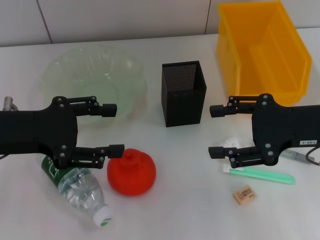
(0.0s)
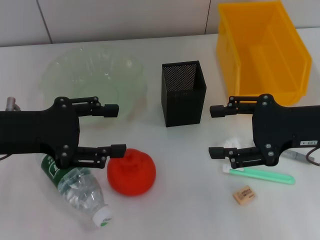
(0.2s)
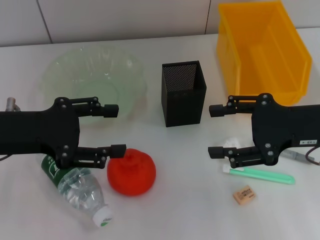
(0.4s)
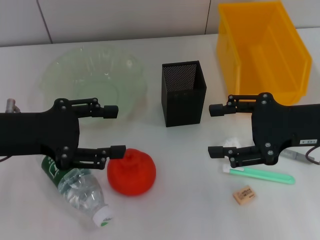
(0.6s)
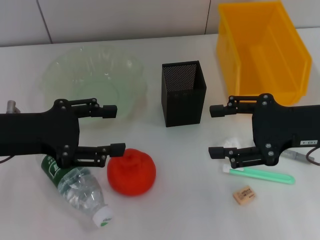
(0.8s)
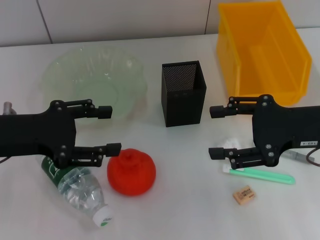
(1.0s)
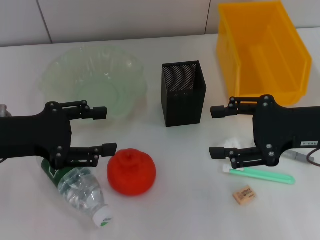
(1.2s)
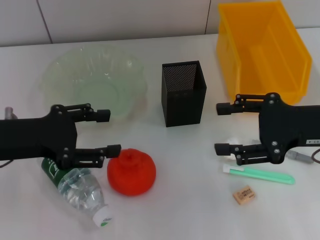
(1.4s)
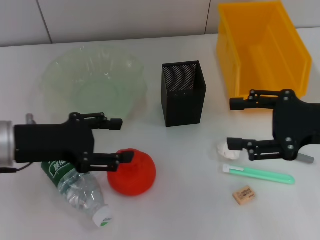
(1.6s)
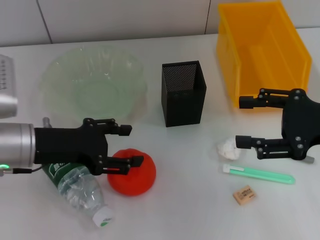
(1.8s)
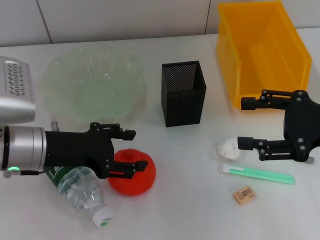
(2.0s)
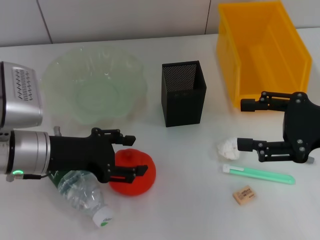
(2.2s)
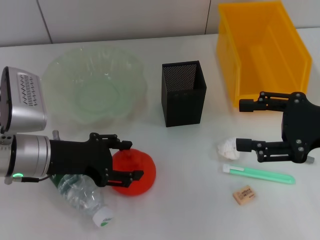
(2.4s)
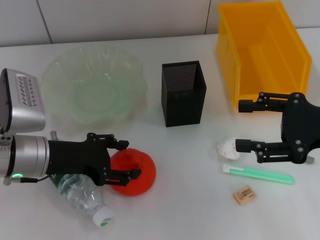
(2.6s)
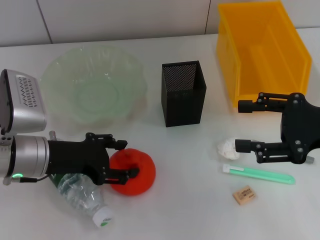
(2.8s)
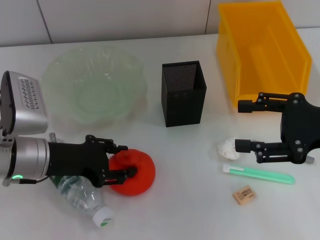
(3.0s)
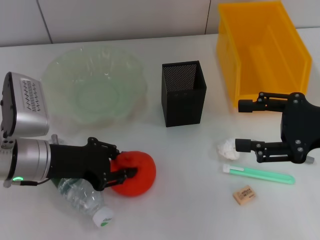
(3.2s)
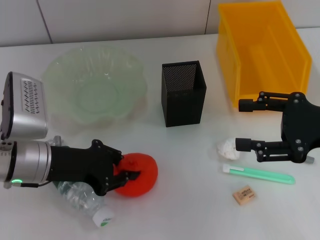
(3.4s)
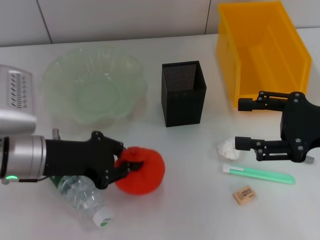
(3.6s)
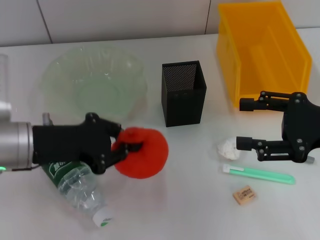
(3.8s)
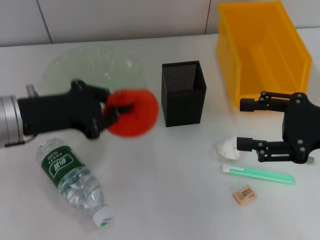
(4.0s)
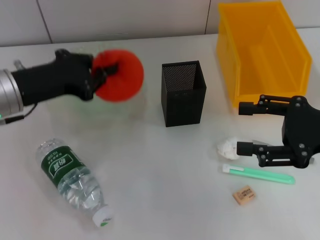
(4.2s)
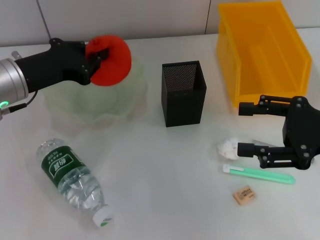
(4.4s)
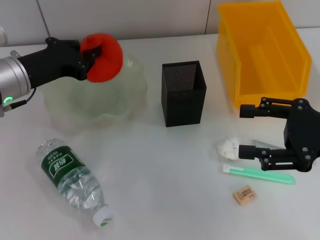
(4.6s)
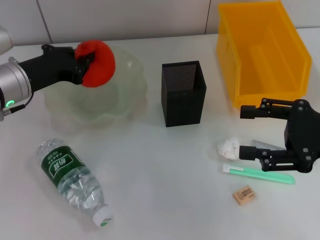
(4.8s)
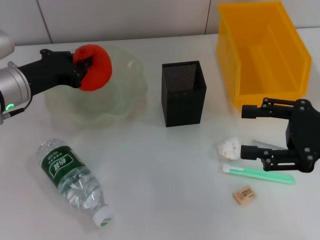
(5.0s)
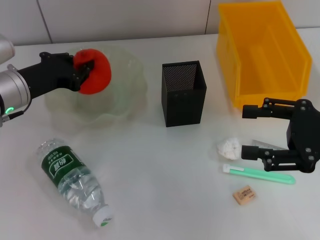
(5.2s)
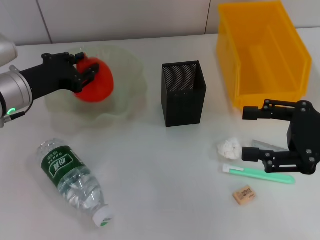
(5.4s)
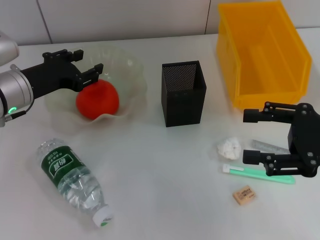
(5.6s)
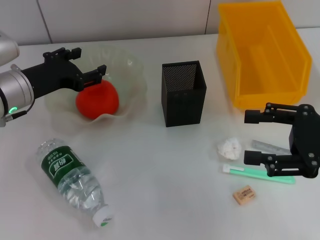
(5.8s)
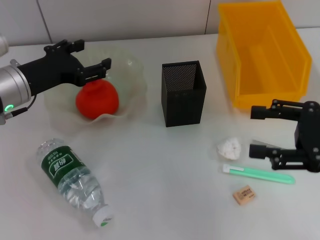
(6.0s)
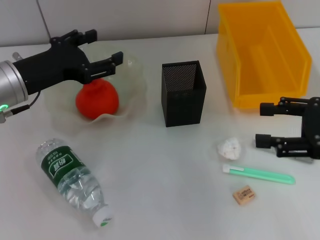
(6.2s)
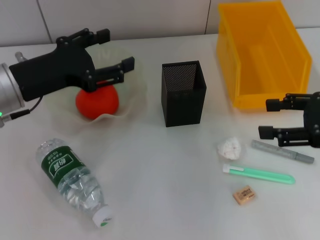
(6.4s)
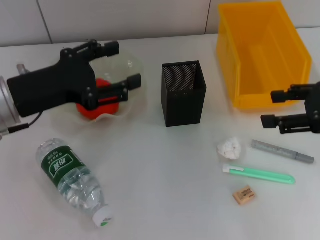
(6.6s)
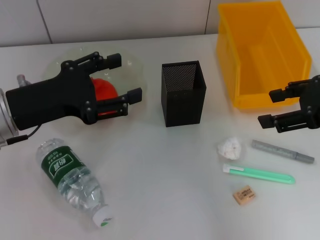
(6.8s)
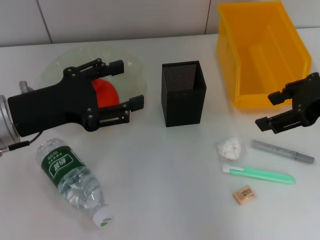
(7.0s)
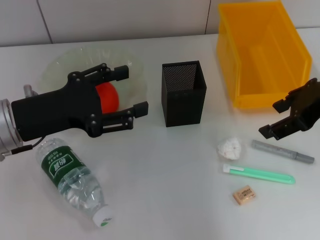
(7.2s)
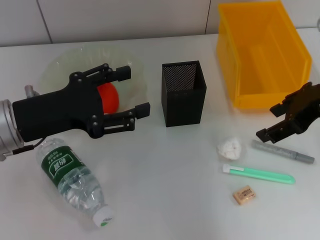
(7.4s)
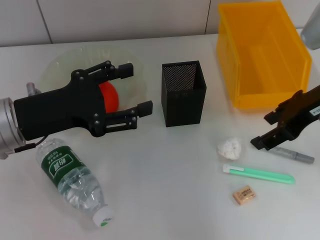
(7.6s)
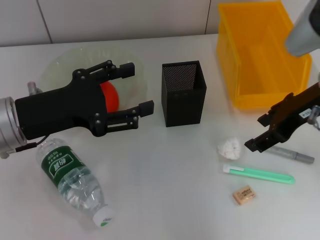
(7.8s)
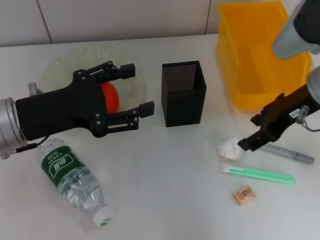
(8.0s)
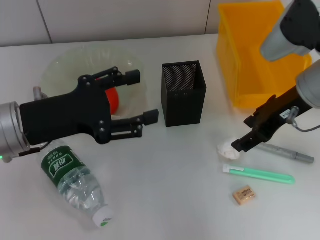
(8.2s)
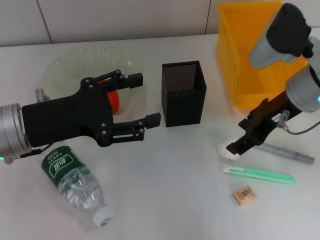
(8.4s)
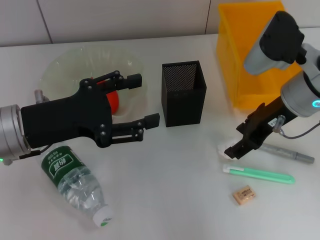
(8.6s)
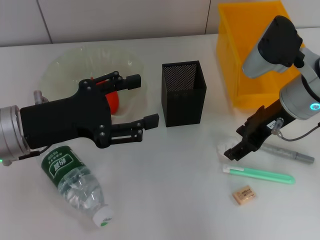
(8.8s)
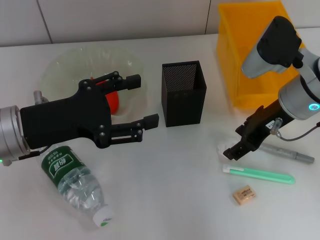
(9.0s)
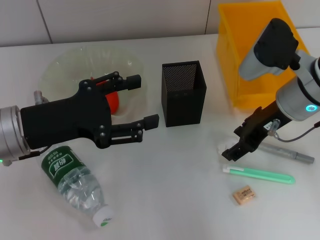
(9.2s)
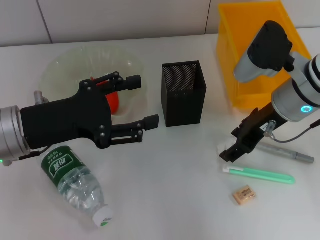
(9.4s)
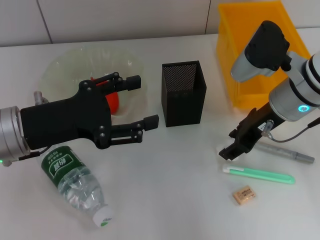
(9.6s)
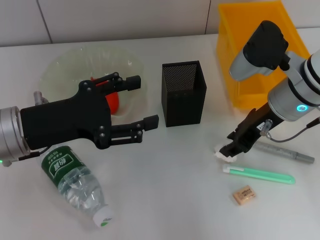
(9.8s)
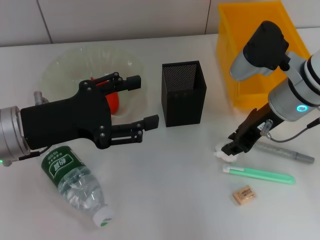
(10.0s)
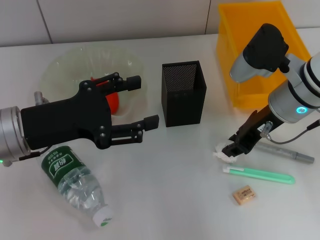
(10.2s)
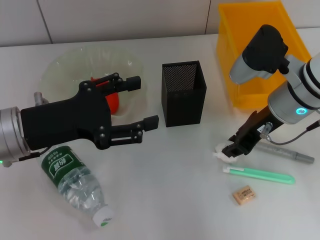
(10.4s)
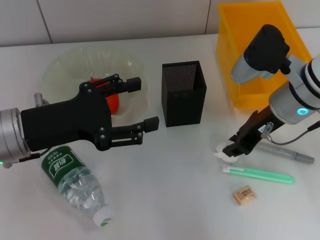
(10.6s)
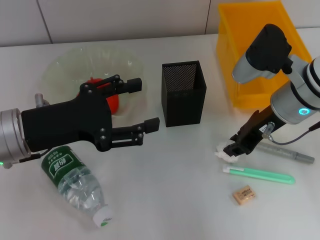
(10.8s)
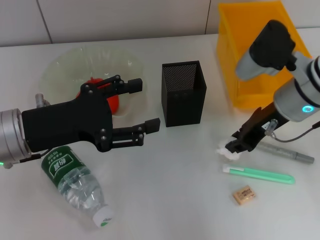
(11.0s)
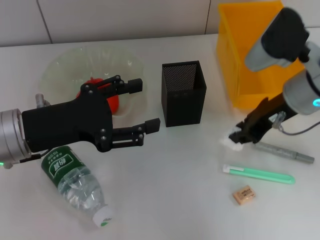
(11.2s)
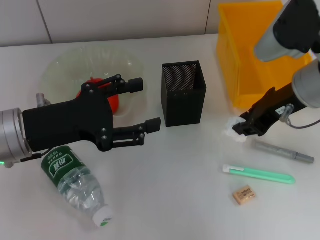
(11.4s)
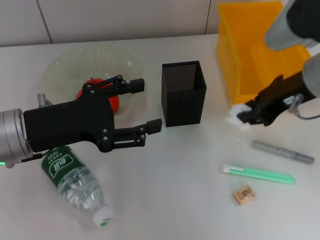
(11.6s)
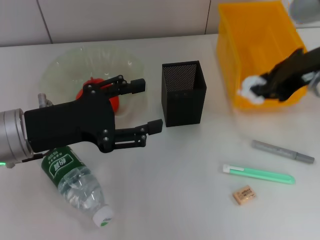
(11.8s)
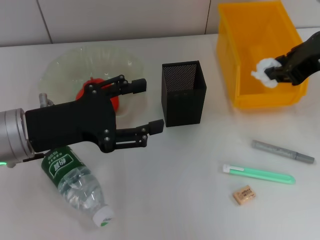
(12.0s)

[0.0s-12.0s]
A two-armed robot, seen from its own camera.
Step, 0.0s to 3.2s: Grab the orange with the left hand.
Step, 3.6s to 5.4s: Place the orange into the fruit bowl with the left hand.
Step, 5.6s to 10.6s: Grab the paper ball with the right hand.
0.0s to 1.6s: There are only small adjustments of the grippers.
1.6s to 3.0s: The left gripper moves roughly 5 cm.
3.0s to 4.4s: The left gripper moves upward, roughly 5 cm, and closes its fingers.
4.4s to 6.0s: The left gripper opens its fingers.
6.0s to 7.6s: The left gripper is displaced backward by about 10 cm; the right gripper goes some 10 cm forward, upward and to the left.
7.6s to 9.0s: The right gripper moves downward, roughly 5 cm.
9.0s to 10.4s: The right gripper closes its fingers.
10.4s to 12.0s: The right gripper moves upward, approximately 10 cm.

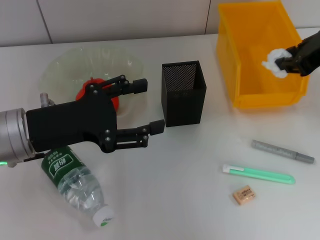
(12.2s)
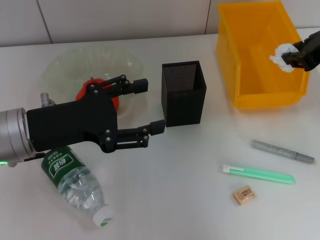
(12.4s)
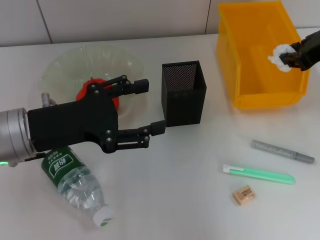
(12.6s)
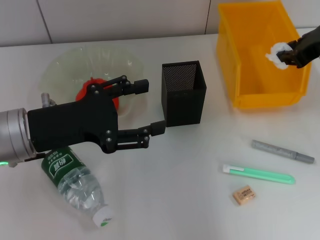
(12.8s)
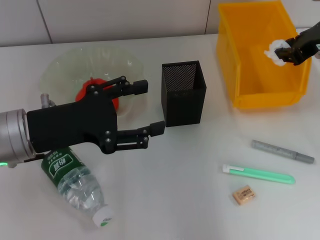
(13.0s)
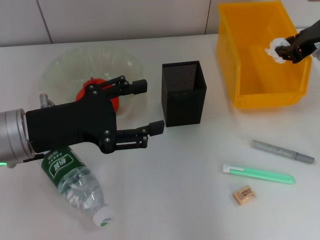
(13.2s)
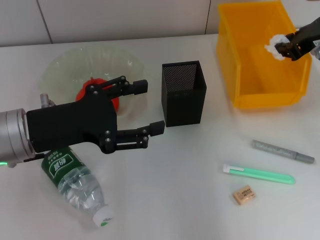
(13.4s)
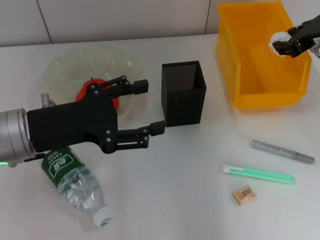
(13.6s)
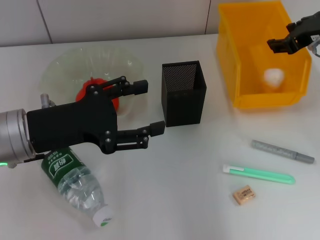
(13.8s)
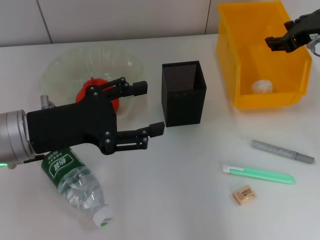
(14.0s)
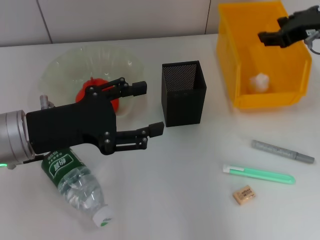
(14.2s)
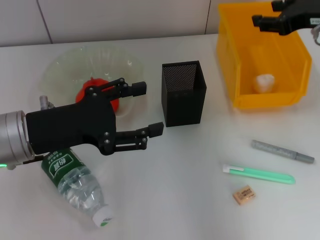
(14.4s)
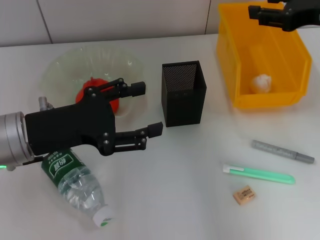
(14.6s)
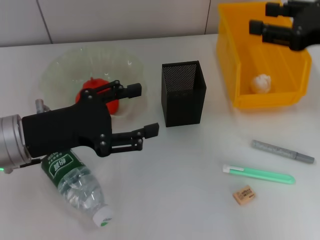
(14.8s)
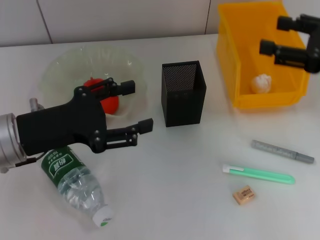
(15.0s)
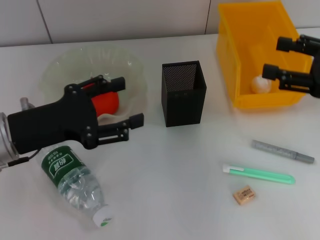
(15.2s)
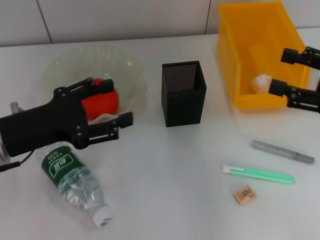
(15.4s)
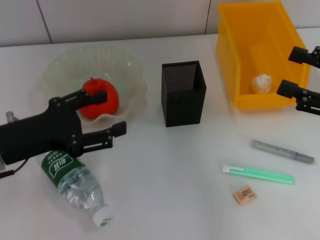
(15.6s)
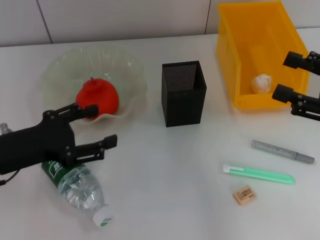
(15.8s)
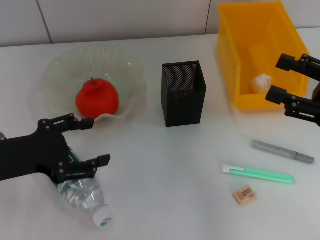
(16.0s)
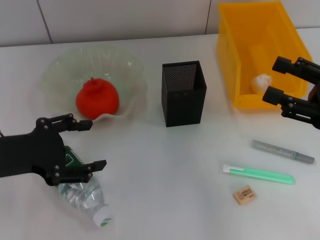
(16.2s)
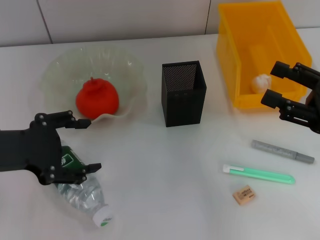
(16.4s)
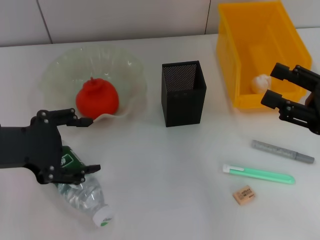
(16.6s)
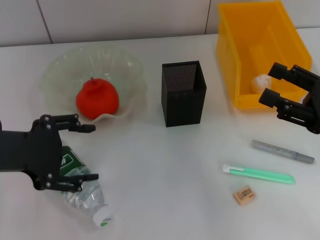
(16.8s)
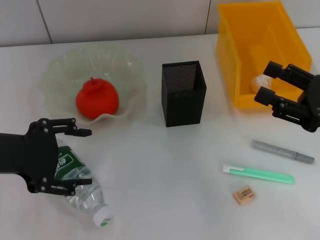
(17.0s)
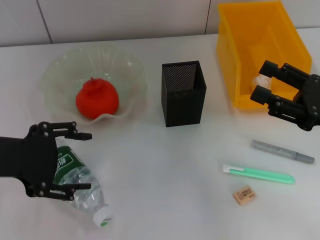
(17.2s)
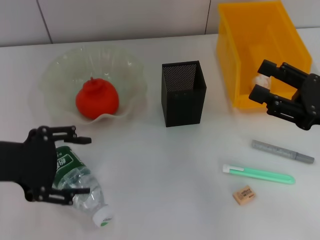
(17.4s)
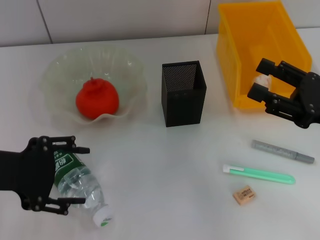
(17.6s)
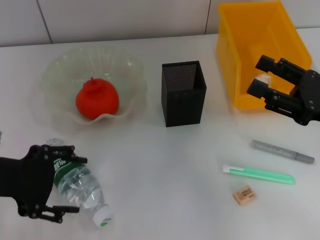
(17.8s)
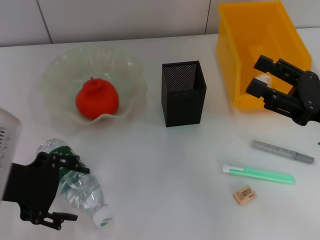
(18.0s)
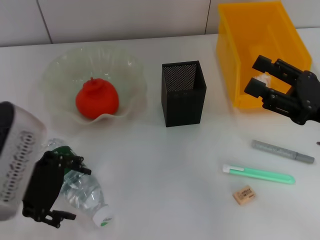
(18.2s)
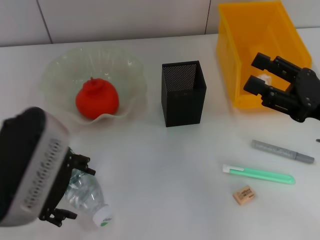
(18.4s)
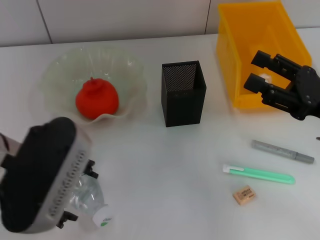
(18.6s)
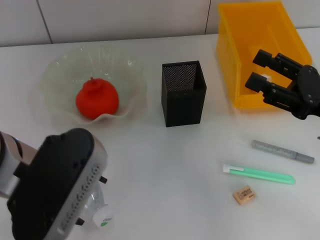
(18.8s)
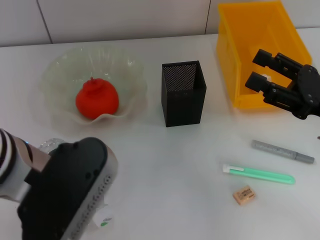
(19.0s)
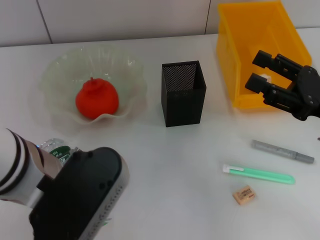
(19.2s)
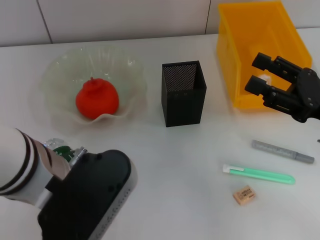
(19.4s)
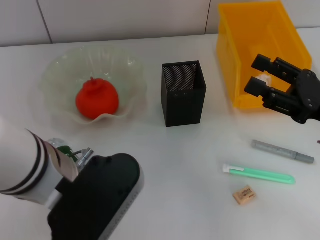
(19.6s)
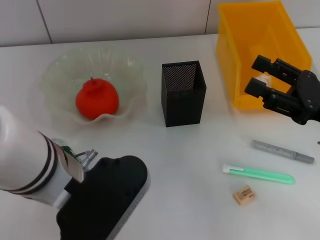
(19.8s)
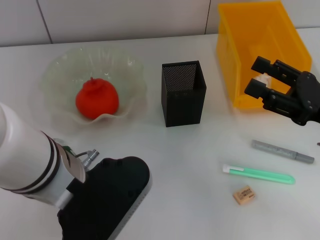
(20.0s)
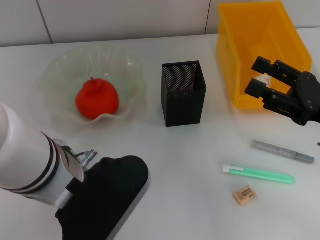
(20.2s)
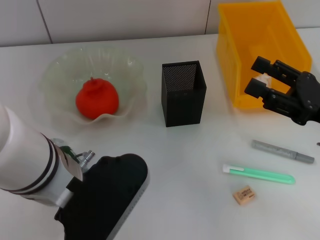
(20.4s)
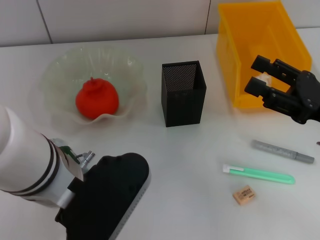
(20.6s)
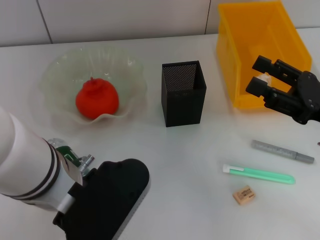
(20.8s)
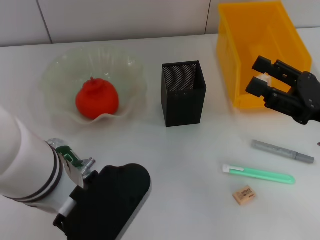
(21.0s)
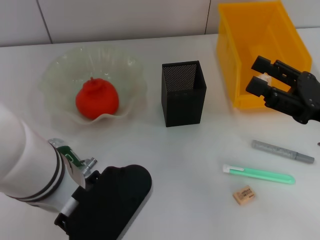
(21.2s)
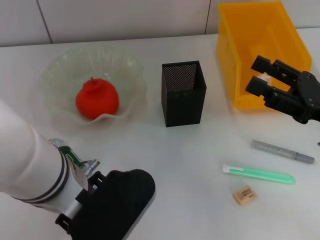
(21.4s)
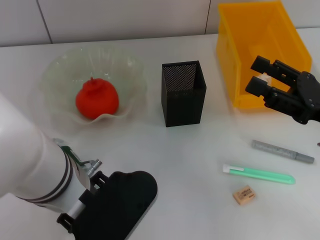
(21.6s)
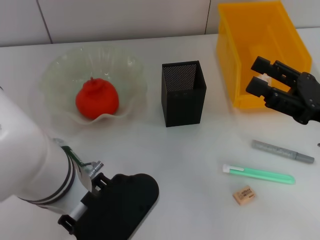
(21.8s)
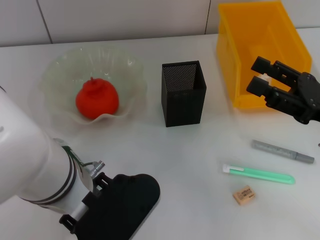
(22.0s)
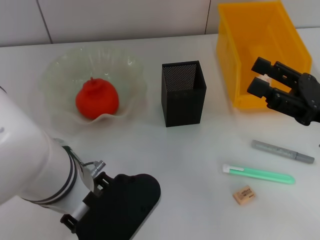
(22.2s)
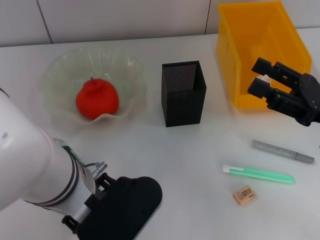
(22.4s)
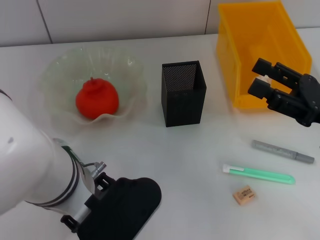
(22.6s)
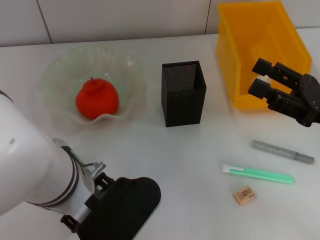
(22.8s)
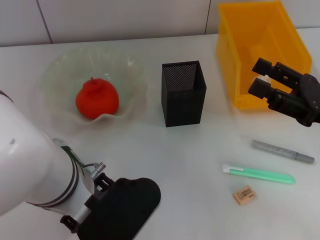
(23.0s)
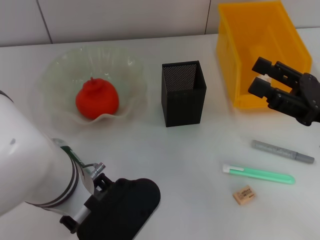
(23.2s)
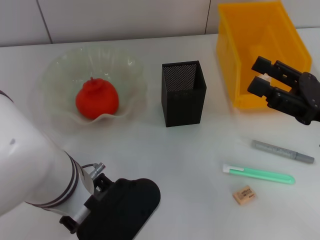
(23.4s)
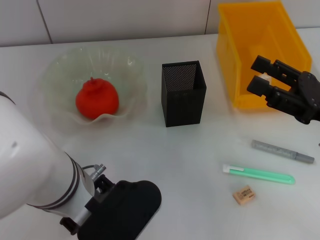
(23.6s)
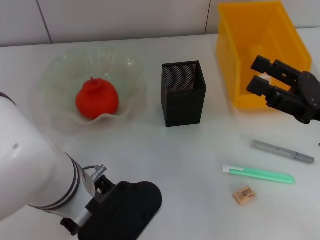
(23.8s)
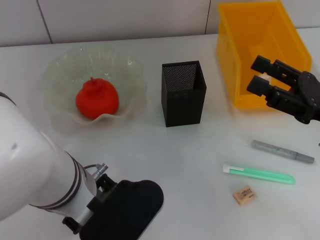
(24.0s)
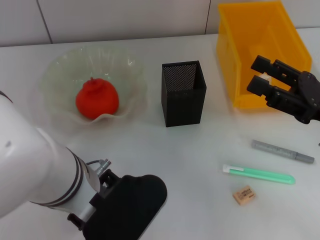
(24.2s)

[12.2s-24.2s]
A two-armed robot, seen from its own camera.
Step, 12.2s to 13.8s: Place the paper ball into the trash can with the right hand.
Step, 14.0s to 23.6s: Grab the water bottle with the left hand.
12.2s to 13.8s: The right gripper shifts roughly 10 cm forward and downward.
13.8s to 15.2s: The right gripper moves backward, some 10 cm, and opens up.
15.2s to 16.6s: The left gripper ends up some 5 cm from where it was. Meanwhile the right gripper shifts approximately 5 cm downward.
18.2s to 19.8s: The left gripper goes about 10 cm to the right.
19.8s to 21.2s: The two grippers keep their place.
21.2s to 22.6s: There are only small adjustments of the grippers.
22.6s to 24.2s: The left gripper closes up.
